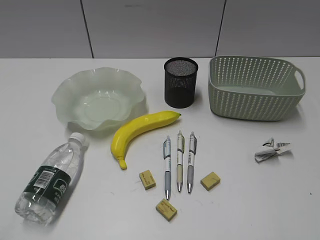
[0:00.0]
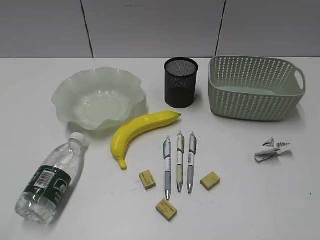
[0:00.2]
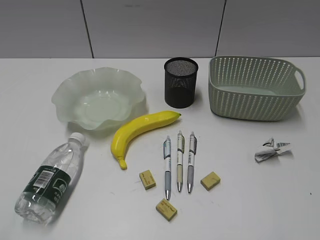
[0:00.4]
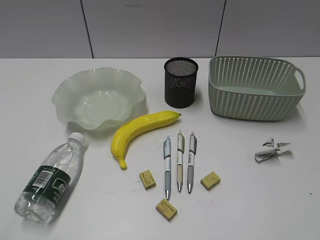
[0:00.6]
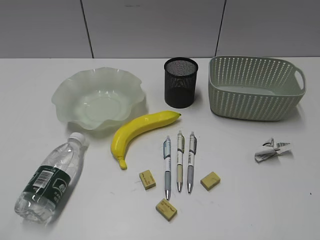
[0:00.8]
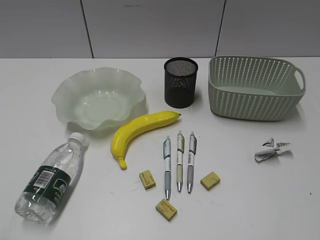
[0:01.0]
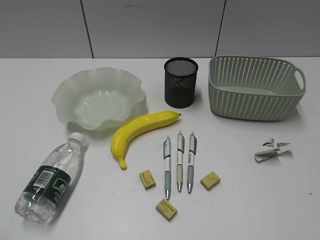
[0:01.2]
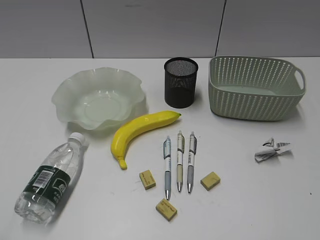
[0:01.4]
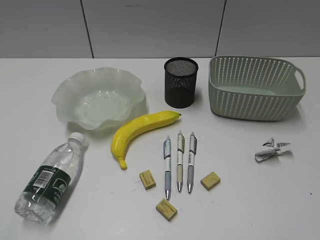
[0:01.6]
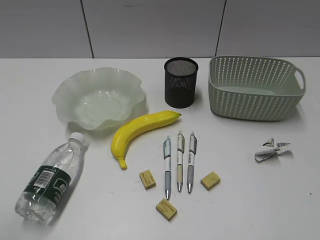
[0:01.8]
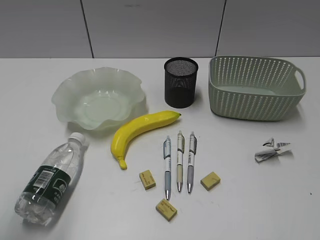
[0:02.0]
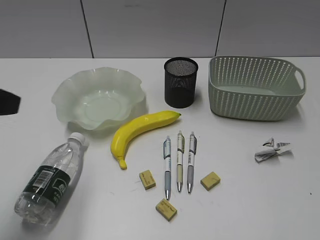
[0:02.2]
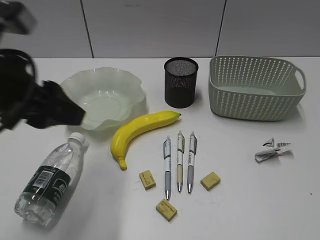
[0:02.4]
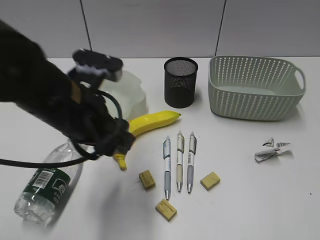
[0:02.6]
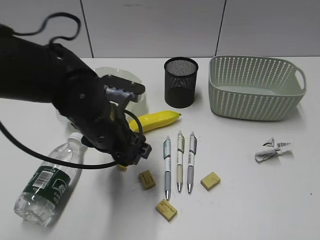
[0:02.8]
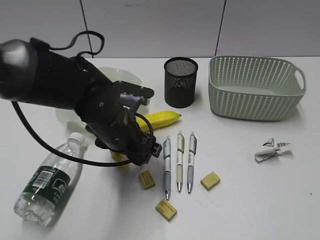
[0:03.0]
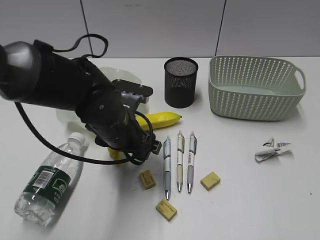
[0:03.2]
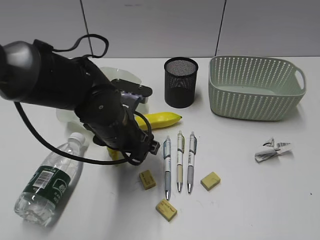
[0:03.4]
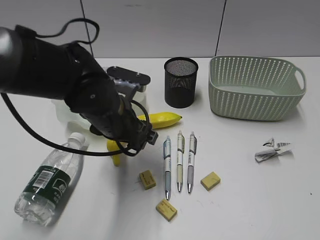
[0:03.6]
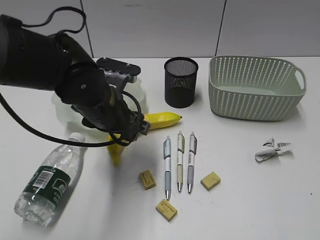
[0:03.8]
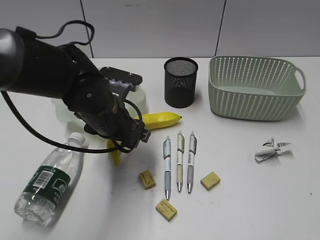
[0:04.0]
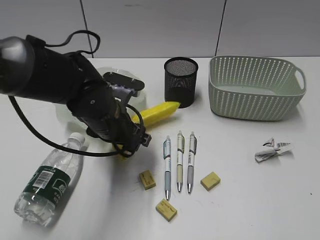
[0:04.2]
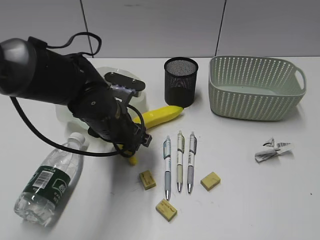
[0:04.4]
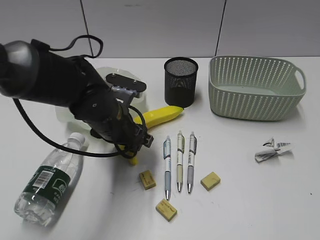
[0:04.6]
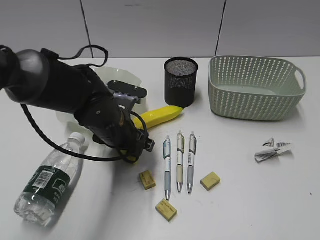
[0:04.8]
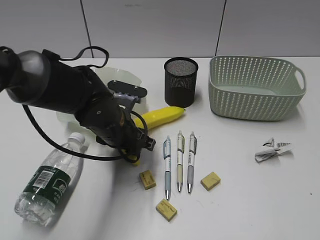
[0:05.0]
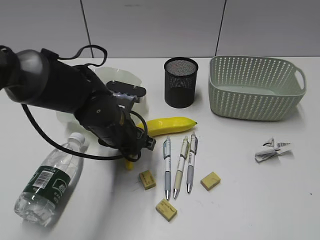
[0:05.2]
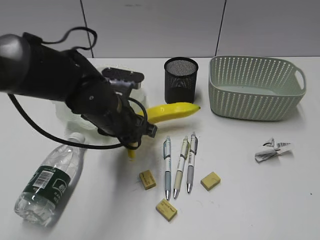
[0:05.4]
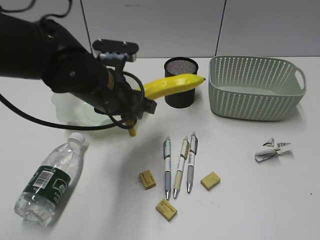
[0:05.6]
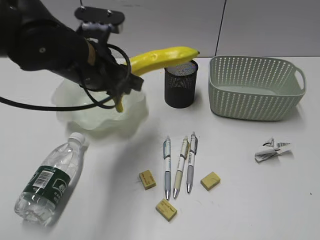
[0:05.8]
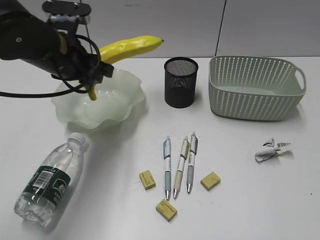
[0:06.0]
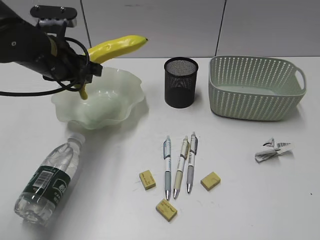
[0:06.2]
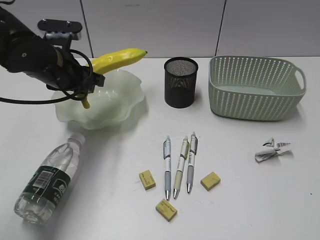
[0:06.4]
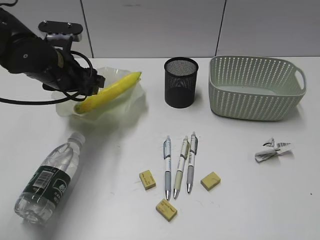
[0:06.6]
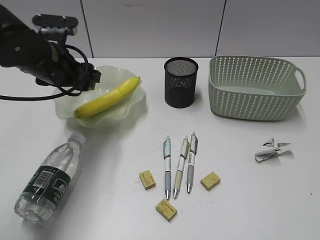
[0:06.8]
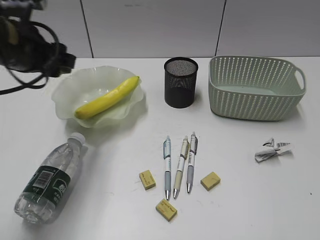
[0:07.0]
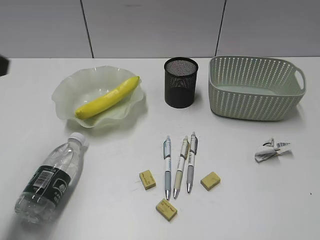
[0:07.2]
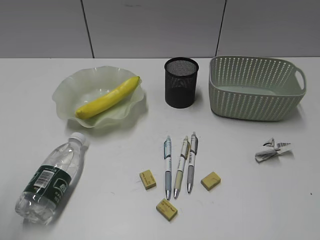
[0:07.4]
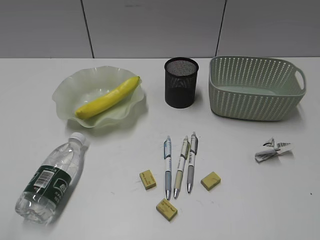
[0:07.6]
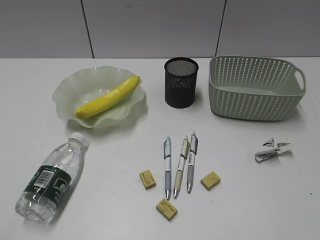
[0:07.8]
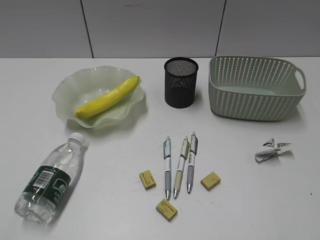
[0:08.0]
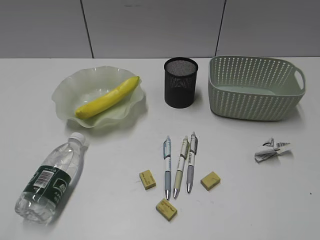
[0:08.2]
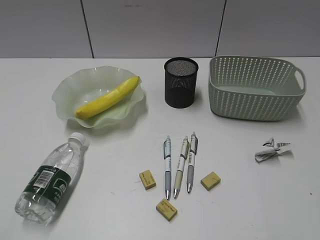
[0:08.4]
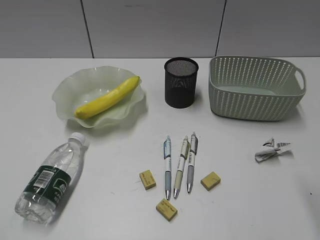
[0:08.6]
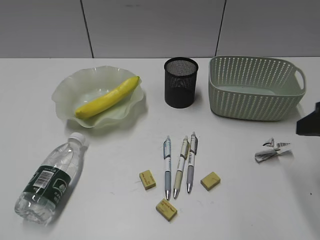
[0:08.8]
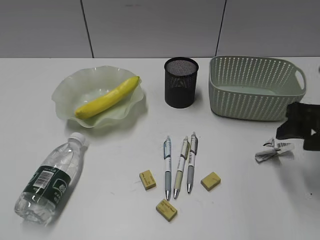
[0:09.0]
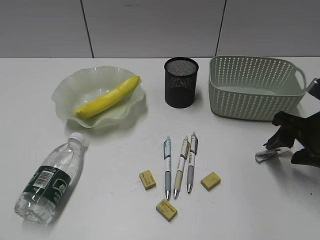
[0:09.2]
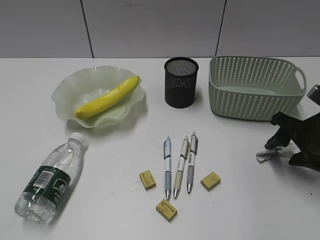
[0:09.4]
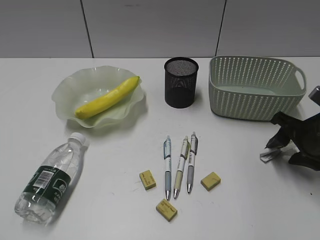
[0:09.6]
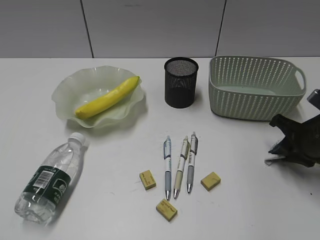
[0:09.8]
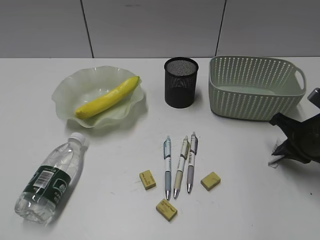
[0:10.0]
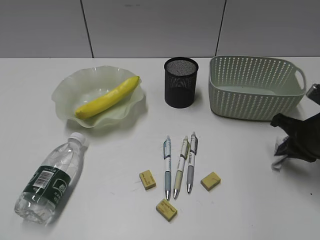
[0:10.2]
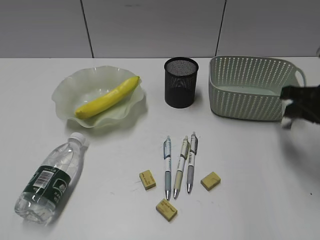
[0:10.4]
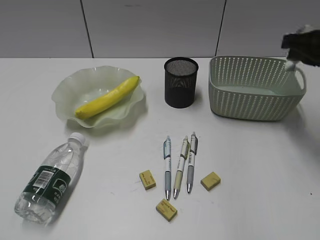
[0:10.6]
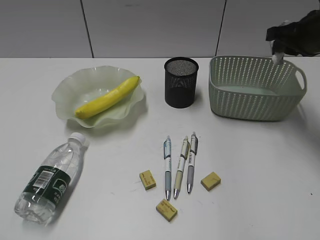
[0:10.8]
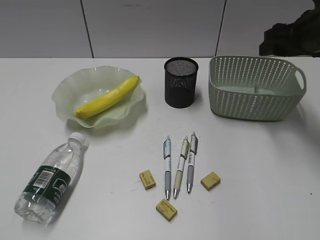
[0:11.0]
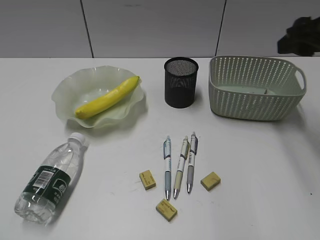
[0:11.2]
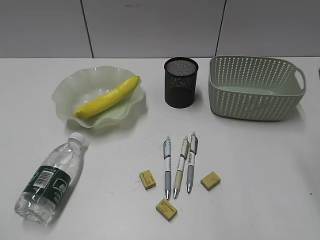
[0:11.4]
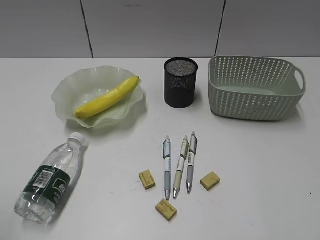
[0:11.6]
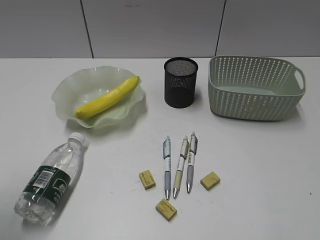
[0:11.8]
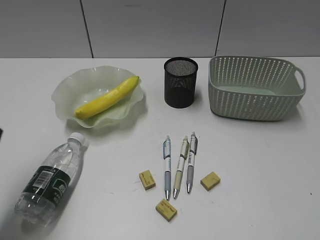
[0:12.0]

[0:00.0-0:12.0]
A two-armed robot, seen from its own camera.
Step, 0:01.6 to 0:05.0: Grasp the banana with left gripper.
Step, 0:05.2 to 0:06.4: Place the banana in the plate with left gripper.
Step, 0:06.6 to 0:10.0: Grasp the waste paper with right gripper.
Step, 0:10.2 to 0:11.0: Place the waste paper in the basket with right gripper.
0:01.6 to 0:03.0: The left gripper is displaced forward, to the right and downward by approximately 40 cm, and opens up.
0:03.0 to 0:04.4: The grippers stay close to where they were, moving slightly.
0:04.4 to 0:06.0: The left gripper travels upward and to the left by some 10 cm, and closes up.
0:06.0 to 0:07.6: The left gripper moves backward and to the left, about 35 cm.
0:07.6 to 0:09.0: The right gripper moves forward, roughly 25 cm, and opens.
0:09.0 to 0:10.4: The right gripper moves roughly 10 cm downward and comes back, and closes its fingers.
0:10.4 to 0:12.0: The left gripper shifts some 20 cm forward, and opens; the right gripper shifts roughly 30 cm backward, and opens up.

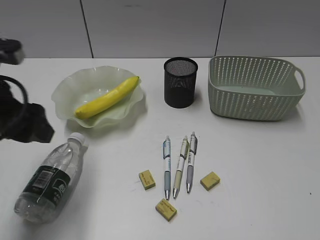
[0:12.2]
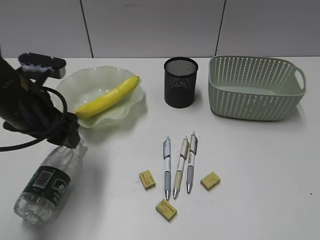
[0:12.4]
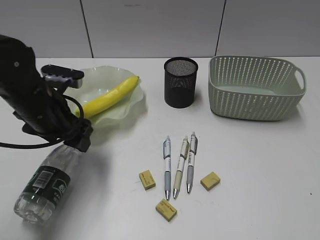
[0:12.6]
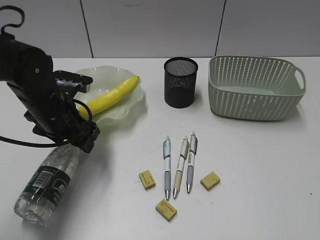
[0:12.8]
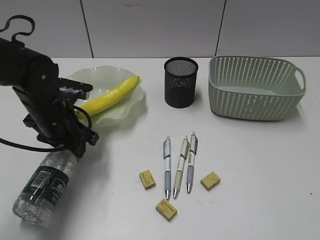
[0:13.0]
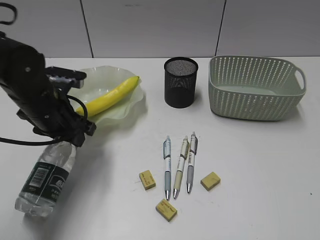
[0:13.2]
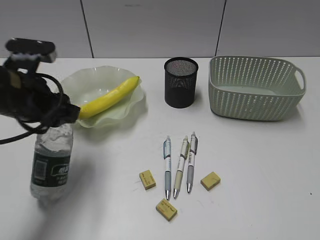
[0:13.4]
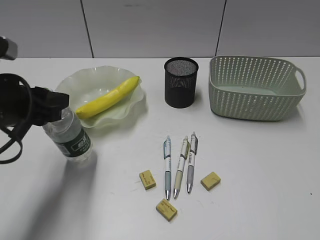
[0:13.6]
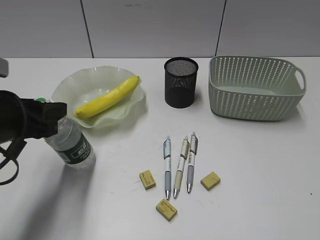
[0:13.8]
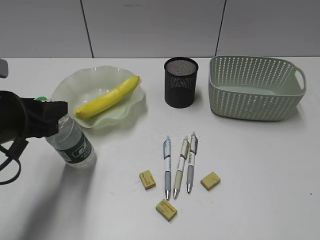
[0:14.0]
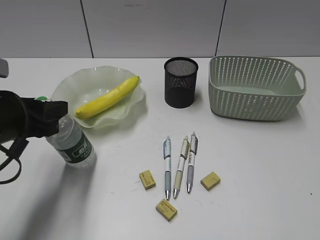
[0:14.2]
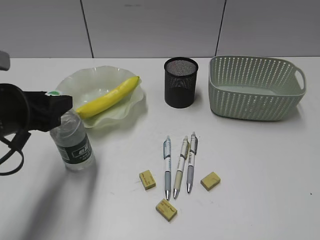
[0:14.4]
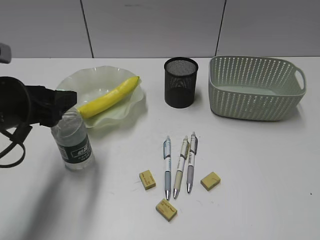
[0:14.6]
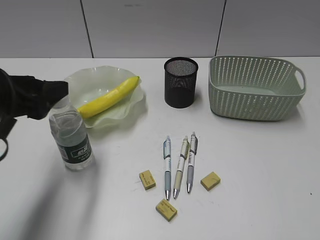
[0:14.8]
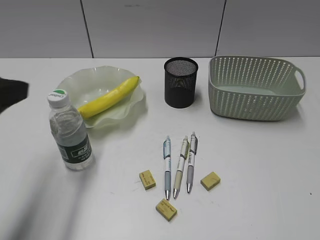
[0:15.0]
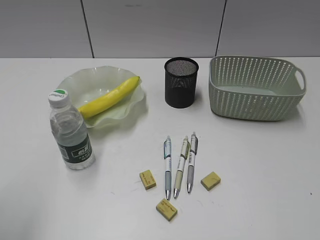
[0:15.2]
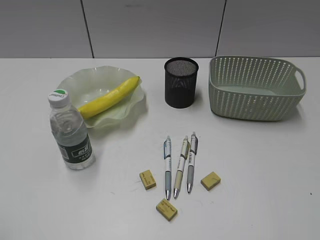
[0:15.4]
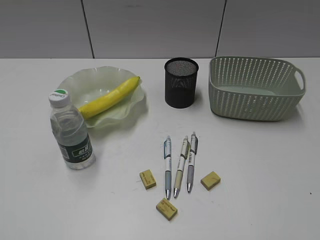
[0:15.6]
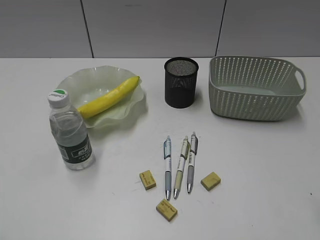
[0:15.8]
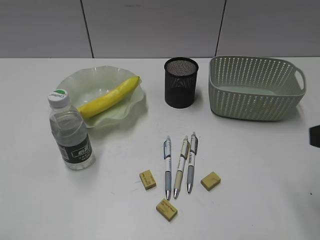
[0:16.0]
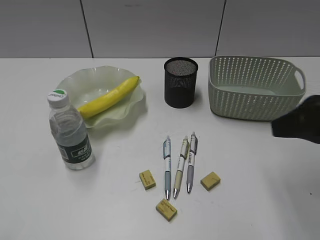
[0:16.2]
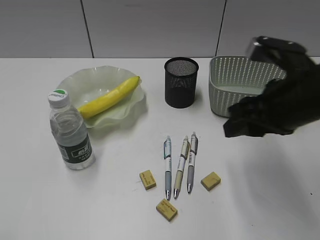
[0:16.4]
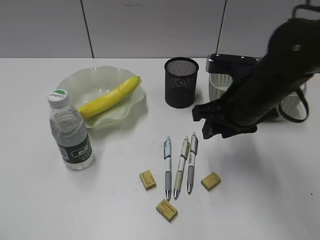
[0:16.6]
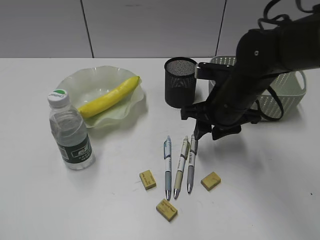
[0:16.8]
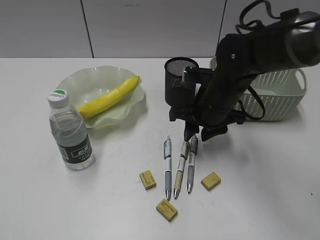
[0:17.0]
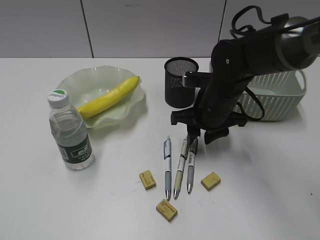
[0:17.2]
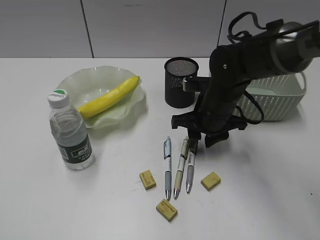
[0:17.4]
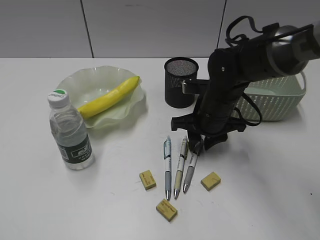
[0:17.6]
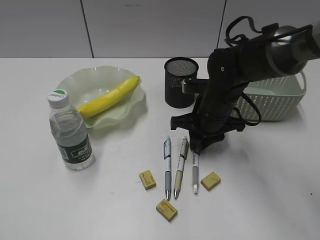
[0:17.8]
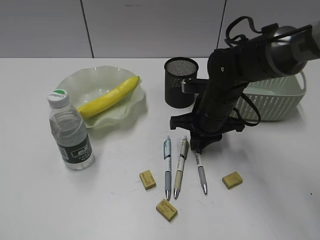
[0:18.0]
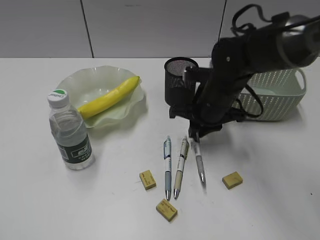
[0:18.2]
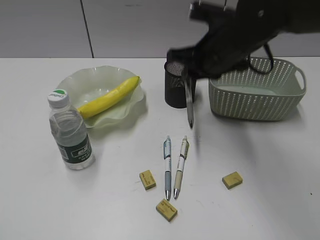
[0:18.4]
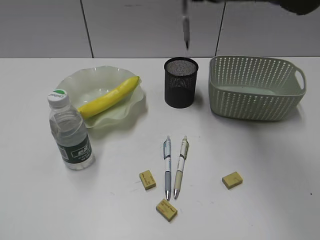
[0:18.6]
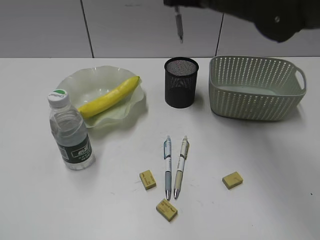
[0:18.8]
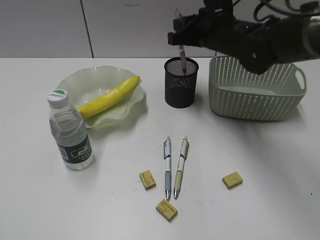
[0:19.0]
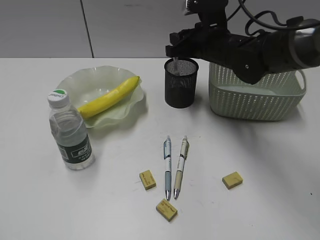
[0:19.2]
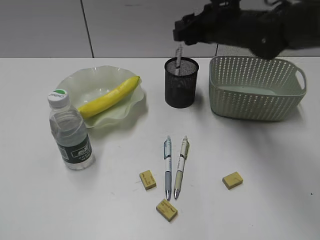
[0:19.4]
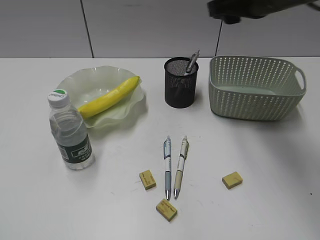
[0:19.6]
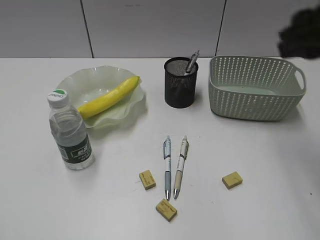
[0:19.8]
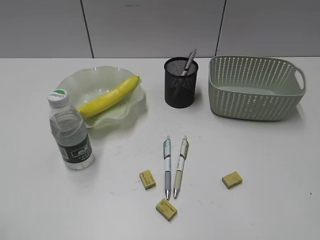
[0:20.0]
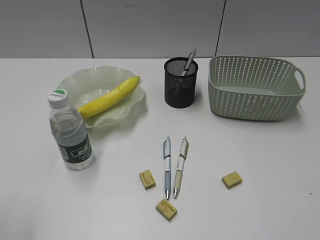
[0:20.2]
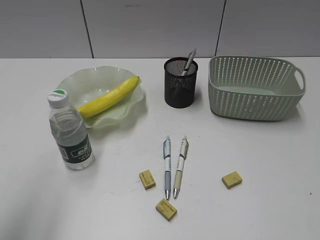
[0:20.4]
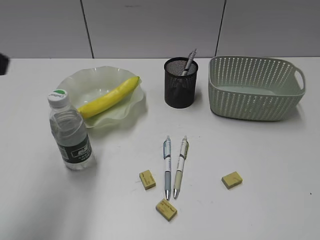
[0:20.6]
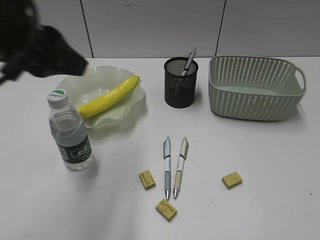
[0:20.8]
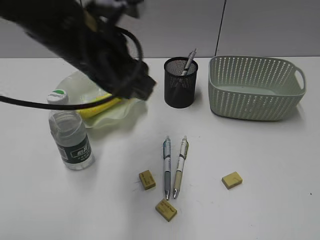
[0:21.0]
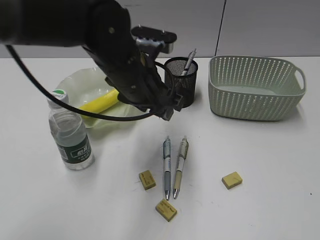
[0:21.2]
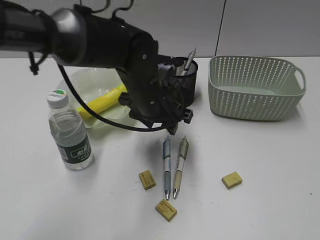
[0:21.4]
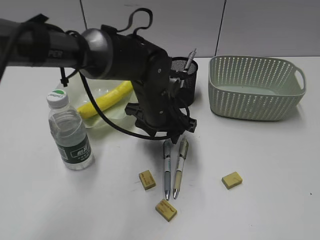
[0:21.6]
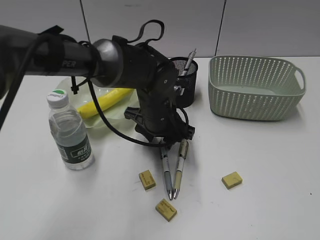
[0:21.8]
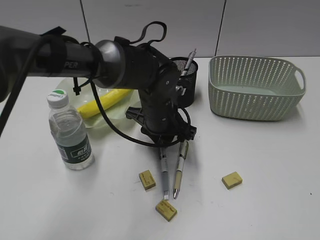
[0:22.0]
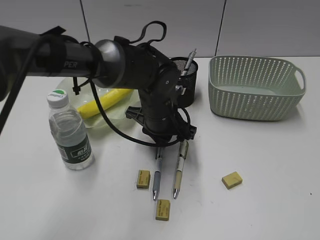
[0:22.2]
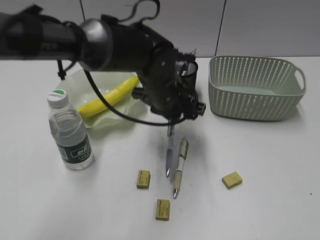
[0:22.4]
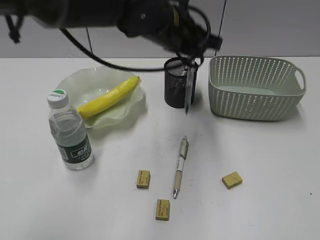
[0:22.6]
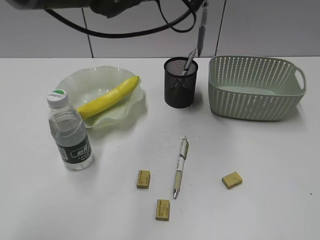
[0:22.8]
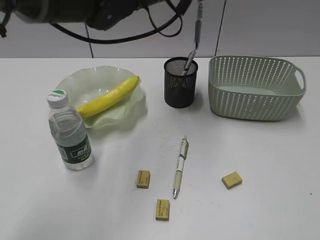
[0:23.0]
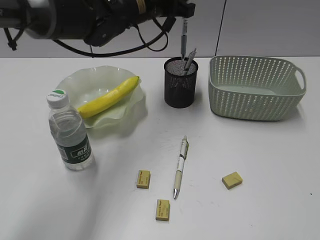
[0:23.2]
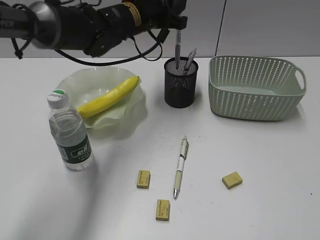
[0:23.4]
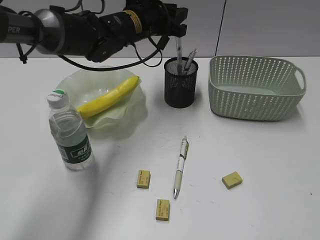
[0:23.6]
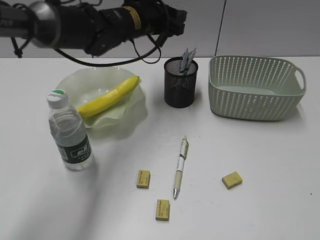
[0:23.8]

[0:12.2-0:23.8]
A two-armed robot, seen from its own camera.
Step, 0:13.2 to 0:14.8: Stand the bottle with left gripper.
Step, 0:15.0 to 0:18.0: Grasp the gray pen with right gripper.
Step, 0:18.2 to 0:19.4: Place the gray pen in pen holder with right gripper.
Step, 0:19.6 to 0:22.0: Grasp the gray pen with left gripper.
Step, 0:22.2 to 0:23.6: Place the gray pen in pen holder with left gripper.
0:12.2 to 0:13.6: The left gripper goes downward and returns, some 10 cm each way, and closes.
0:13.6 to 0:15.0: The left gripper goes about 10 cm upward and backward, and opens up.
0:15.0 to 0:16.6: The right gripper shifts about 35 cm forward and to the left. The left gripper heads backward and to the left, covering some 20 cm, and closes its fingers.
0:16.6 to 0:18.0: The right gripper moves downward, roughly 10 cm, and closes its fingers.
0:18.0 to 0:19.4: The right gripper swings up and down, some 20 cm each way, with 2 reversals, and opens its fingers.
0:19.4 to 0:21.0: The left gripper goes about 40 cm forward and to the right; the right gripper shifts some 50 cm backward and to the right.
0:21.0 to 0:22.4: The left gripper shifts roughly 15 cm downward, to the right and forward, and closes up.
0:22.4 to 0:23.8: The left gripper is displaced forward, upward and to the left by roughly 15 cm, and opens up.
